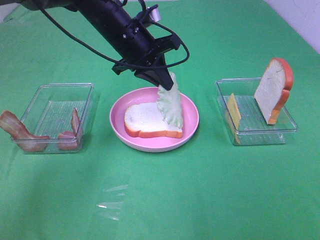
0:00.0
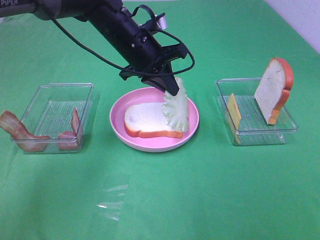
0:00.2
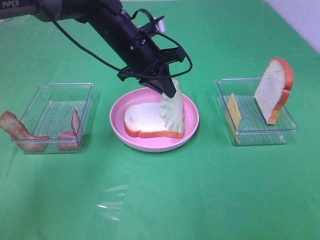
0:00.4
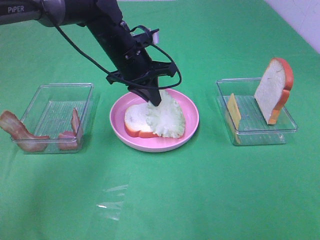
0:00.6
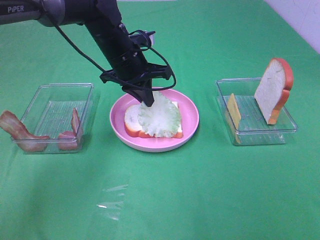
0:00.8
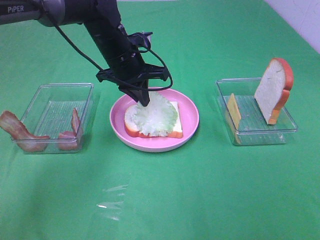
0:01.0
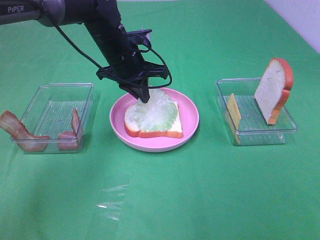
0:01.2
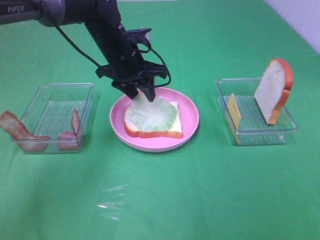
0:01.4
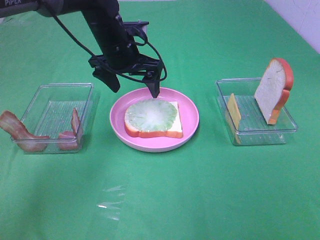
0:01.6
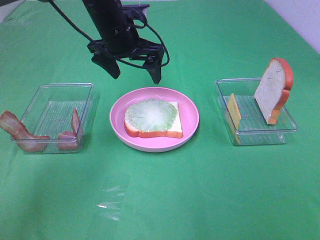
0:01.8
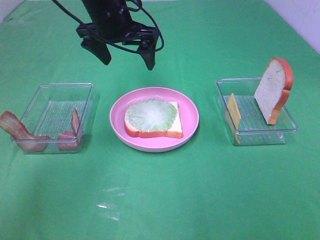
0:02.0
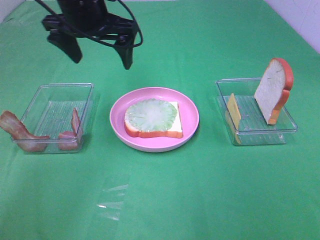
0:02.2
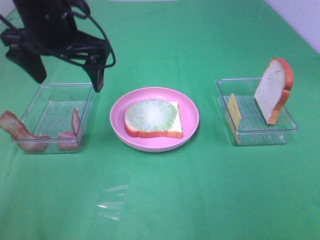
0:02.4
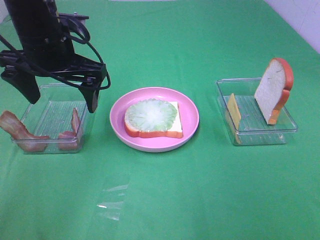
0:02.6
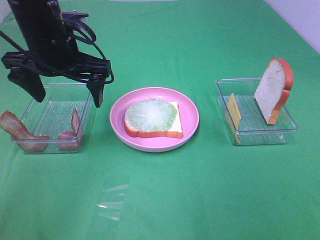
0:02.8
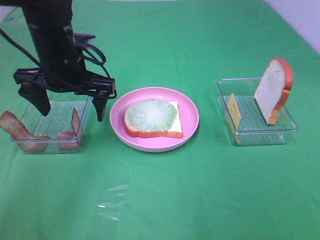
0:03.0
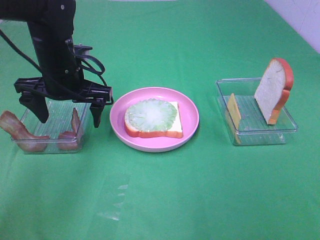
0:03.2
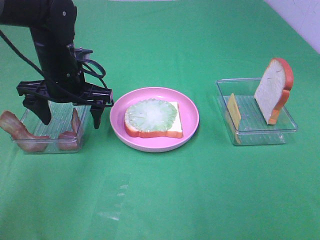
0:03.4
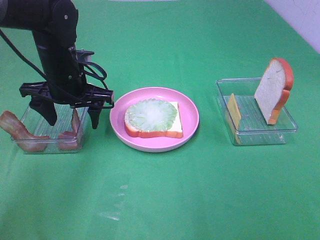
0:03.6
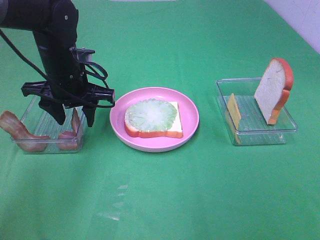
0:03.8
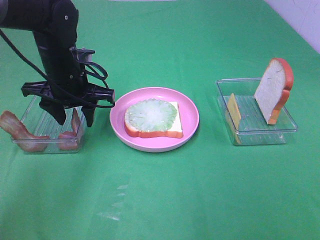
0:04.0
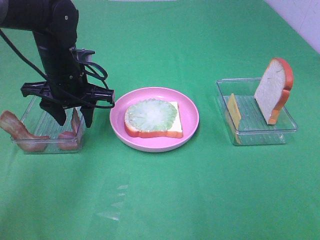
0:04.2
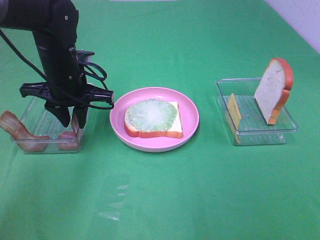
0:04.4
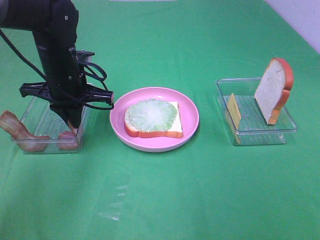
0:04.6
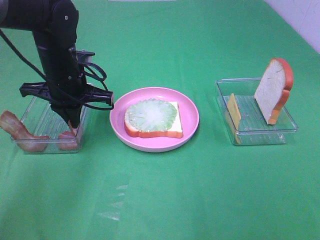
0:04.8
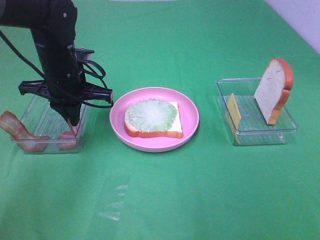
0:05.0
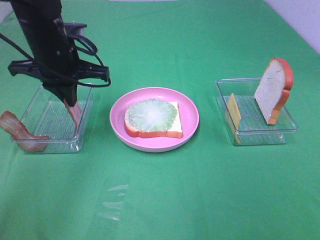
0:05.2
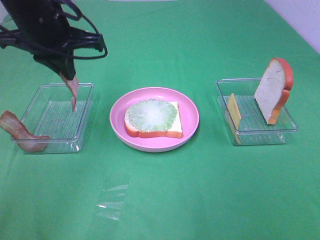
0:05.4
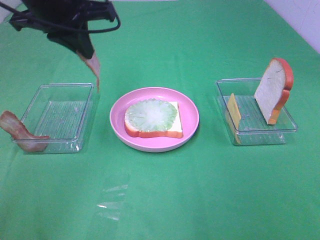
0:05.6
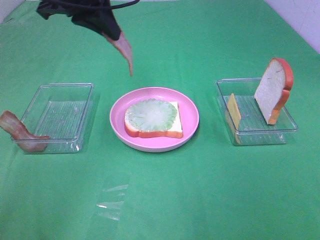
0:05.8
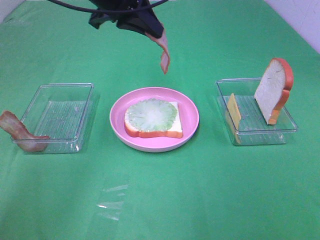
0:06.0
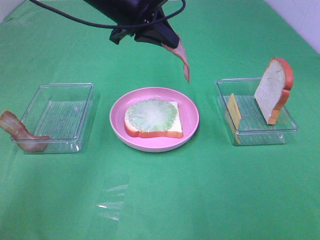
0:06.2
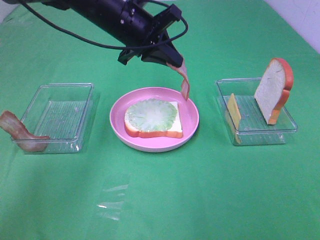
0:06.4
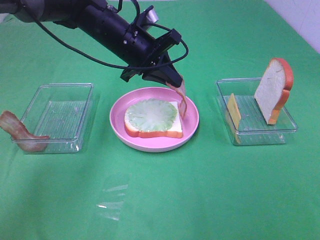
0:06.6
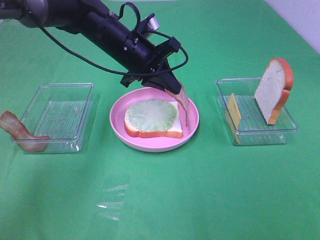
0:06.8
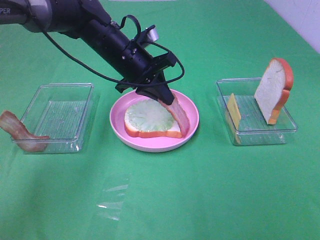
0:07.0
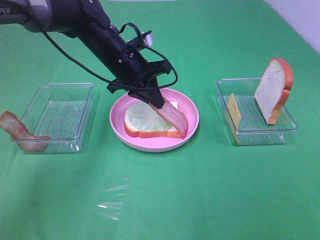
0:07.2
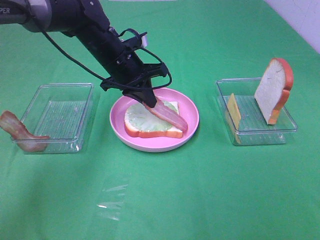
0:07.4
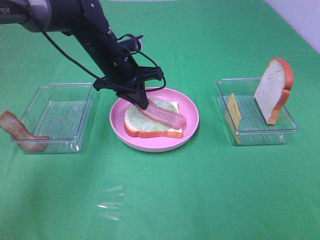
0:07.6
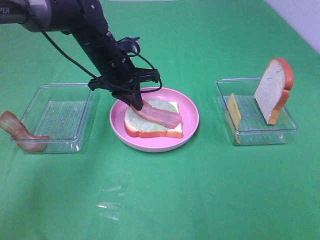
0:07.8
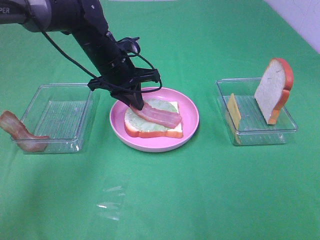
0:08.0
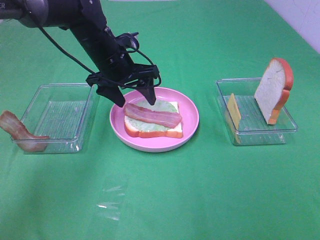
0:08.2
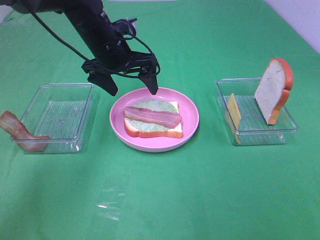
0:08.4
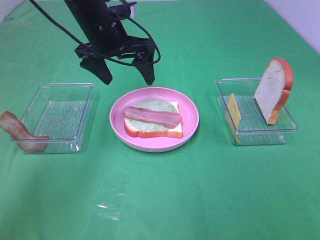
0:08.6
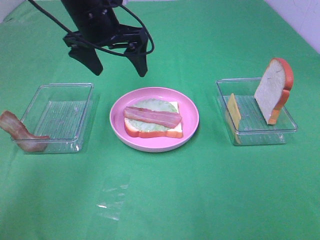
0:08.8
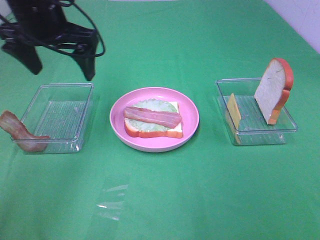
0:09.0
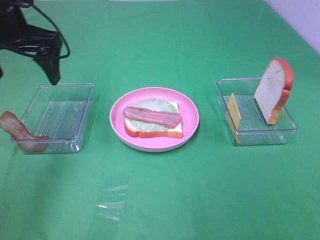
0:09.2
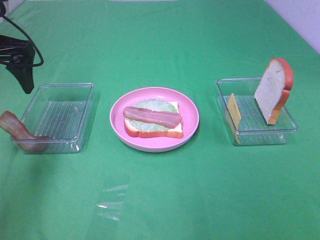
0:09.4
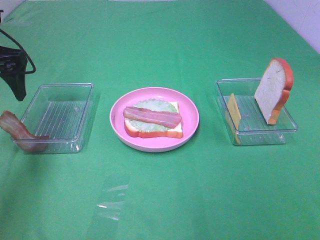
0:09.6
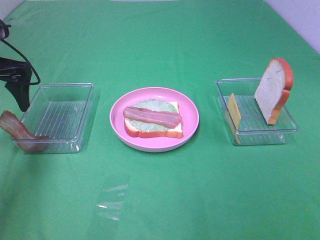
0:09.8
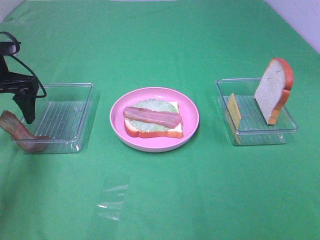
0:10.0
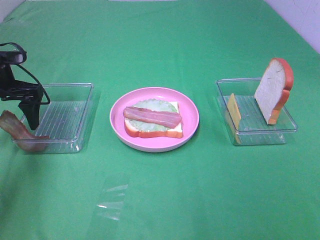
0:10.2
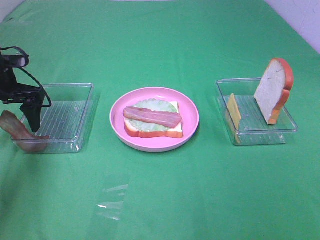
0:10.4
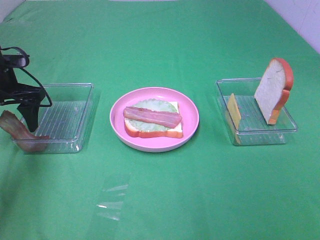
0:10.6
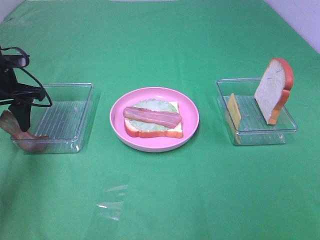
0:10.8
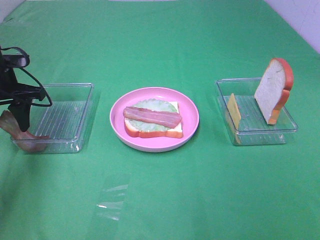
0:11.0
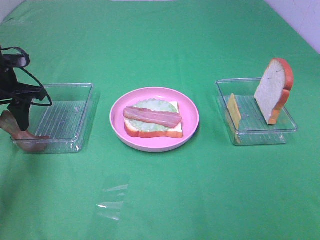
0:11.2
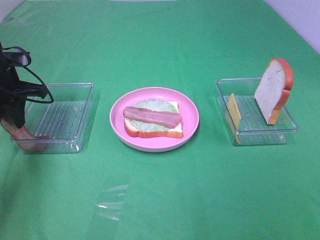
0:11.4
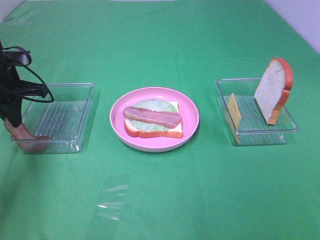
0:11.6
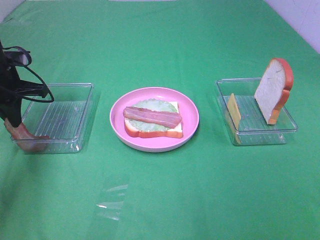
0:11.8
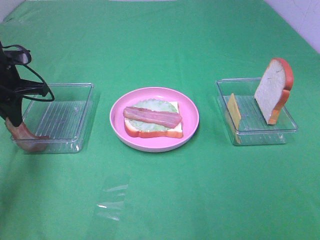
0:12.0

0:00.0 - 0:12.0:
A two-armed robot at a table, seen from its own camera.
Task of the whole recording: Make sandwiches.
Step, 0:01.6 - 0:04.6: Left hand:grab the bacon.
Step, 0:04.8 - 0:08.2: Left hand:place bacon on lettuce slice.
Step, 0:08.4 - 0:11.8: Left hand:grab the bacon.
0:00.0 - 0:01.6: The left gripper opens.
0:01.6 - 0:03.0: The left gripper goes some 10 cm backward and to the left.
0:03.0 - 0:04.4: The left gripper closes.
0:04.4 - 0:06.0: The left gripper heads upward and to the right, covering approximately 15 cm.
0:06.0 - 0:07.6: The left gripper heads downward, covering approximately 15 cm.
0:07.6 - 0:09.0: The left gripper heads upward, to the left and backward, covering approximately 15 cm, and opens its fingers.
0:09.0 - 0:10.4: The left gripper heads downward and to the left, covering about 15 cm.
0:10.4 - 0:12.0: The left gripper closes.

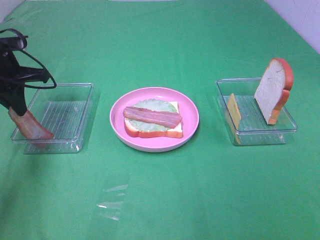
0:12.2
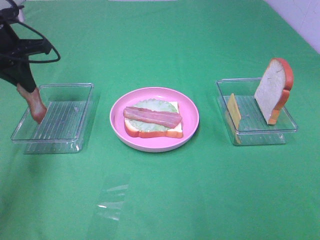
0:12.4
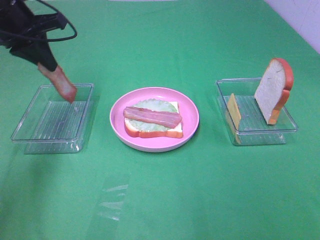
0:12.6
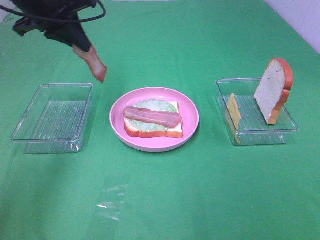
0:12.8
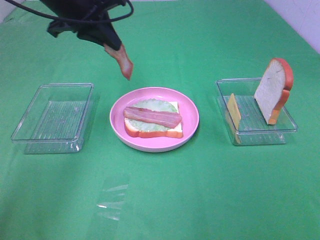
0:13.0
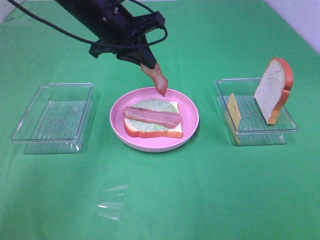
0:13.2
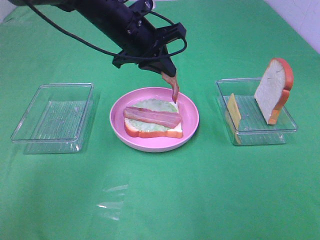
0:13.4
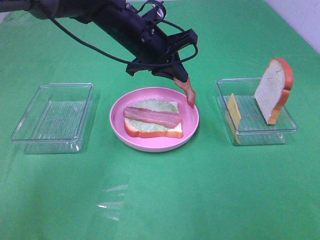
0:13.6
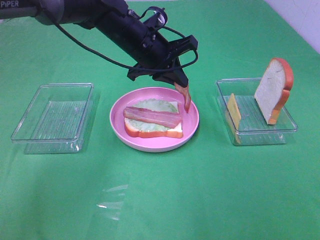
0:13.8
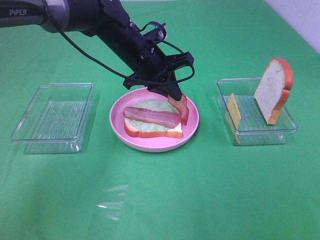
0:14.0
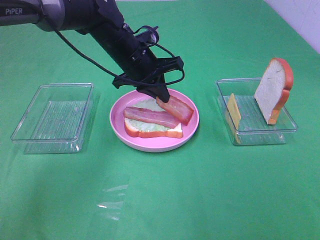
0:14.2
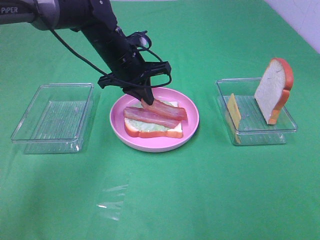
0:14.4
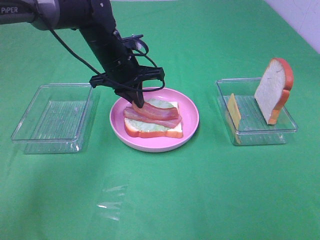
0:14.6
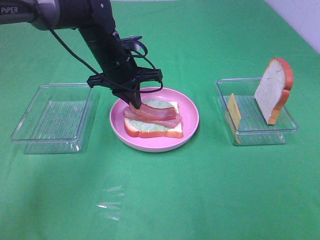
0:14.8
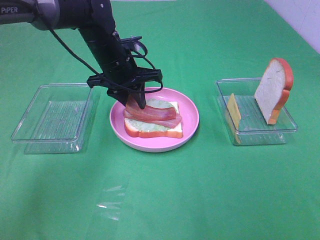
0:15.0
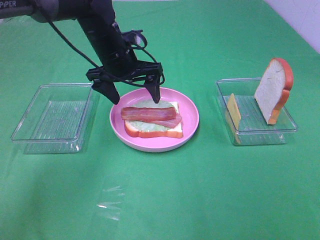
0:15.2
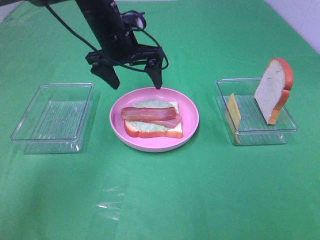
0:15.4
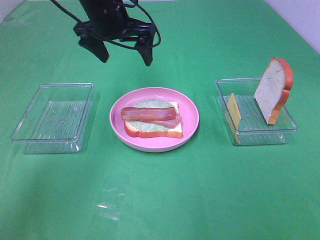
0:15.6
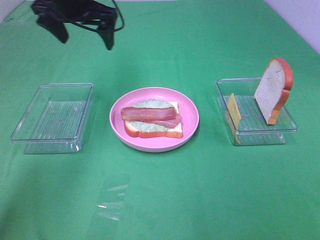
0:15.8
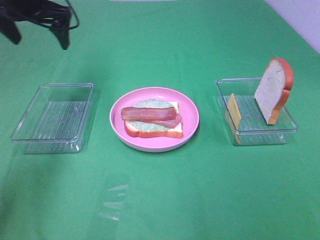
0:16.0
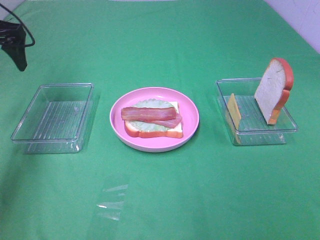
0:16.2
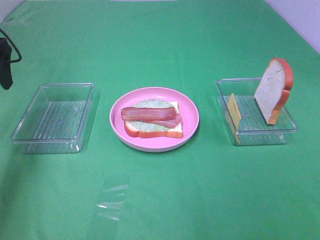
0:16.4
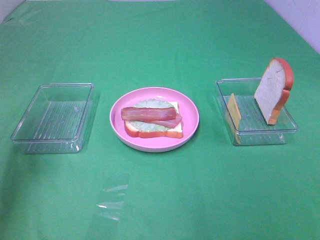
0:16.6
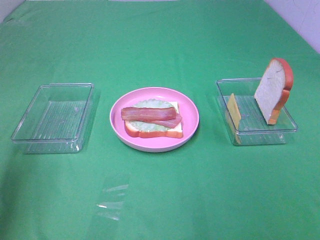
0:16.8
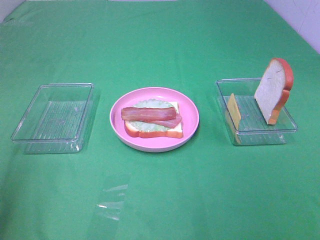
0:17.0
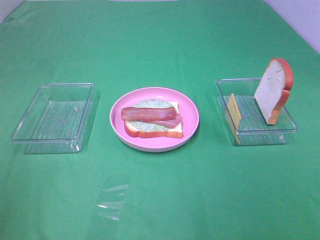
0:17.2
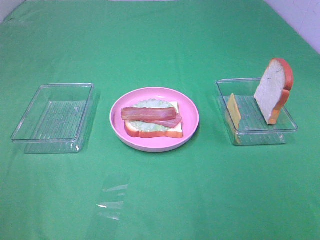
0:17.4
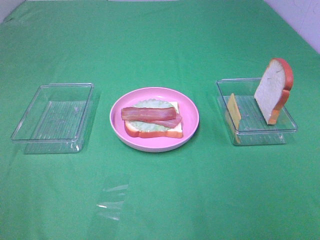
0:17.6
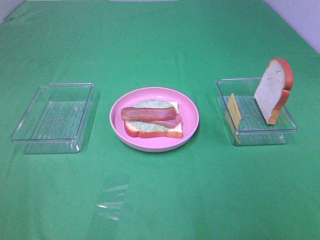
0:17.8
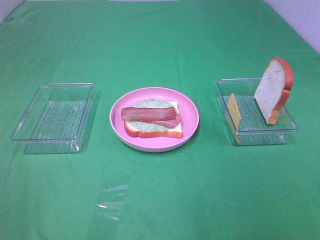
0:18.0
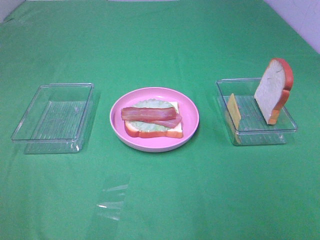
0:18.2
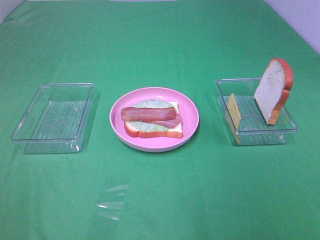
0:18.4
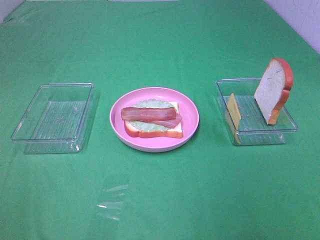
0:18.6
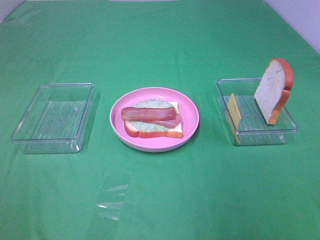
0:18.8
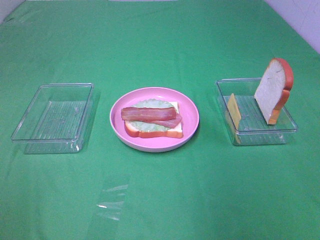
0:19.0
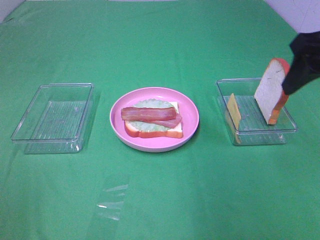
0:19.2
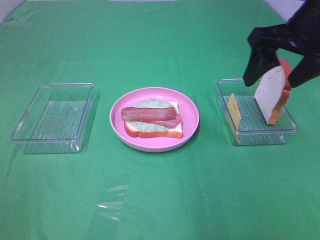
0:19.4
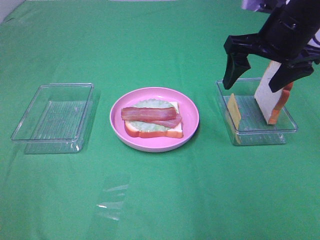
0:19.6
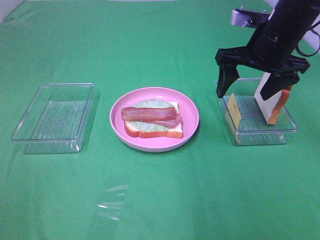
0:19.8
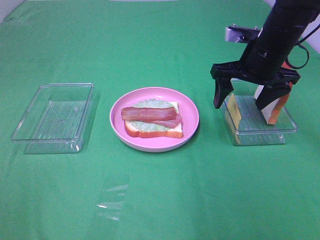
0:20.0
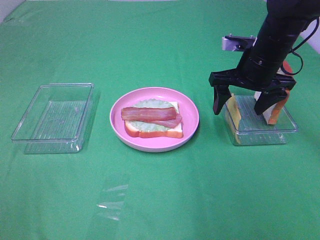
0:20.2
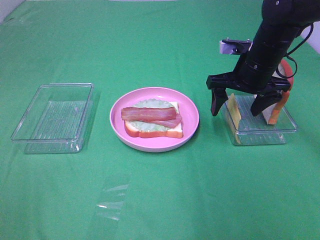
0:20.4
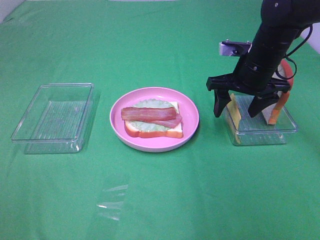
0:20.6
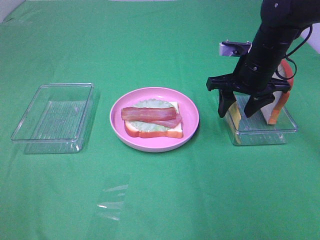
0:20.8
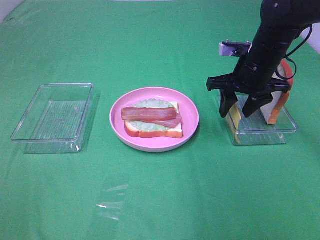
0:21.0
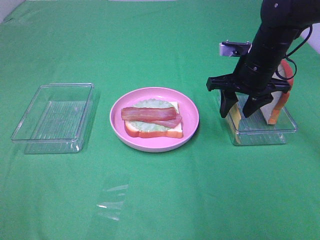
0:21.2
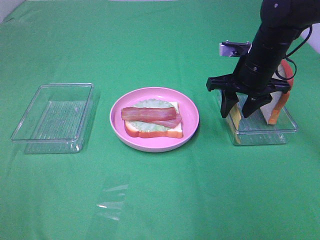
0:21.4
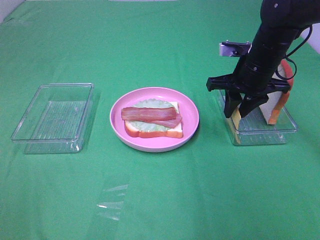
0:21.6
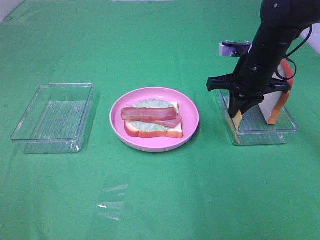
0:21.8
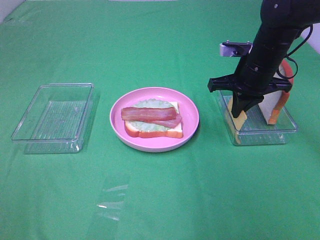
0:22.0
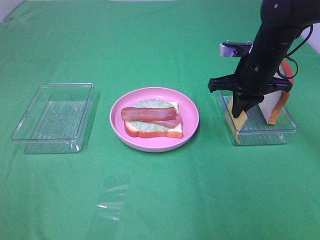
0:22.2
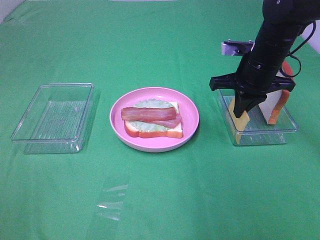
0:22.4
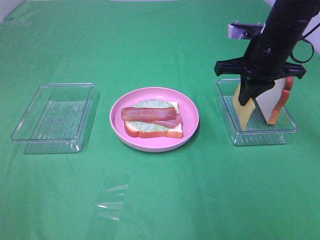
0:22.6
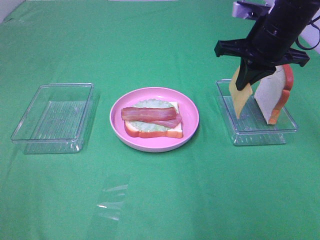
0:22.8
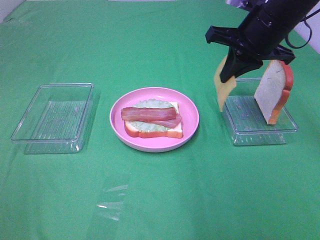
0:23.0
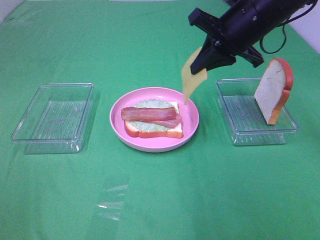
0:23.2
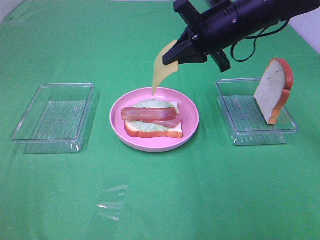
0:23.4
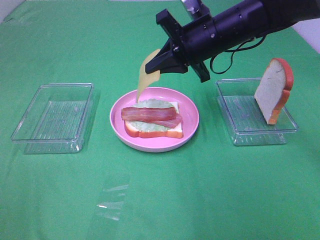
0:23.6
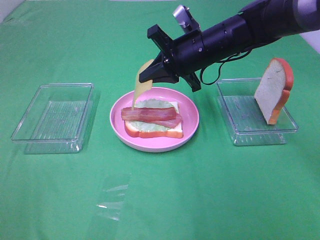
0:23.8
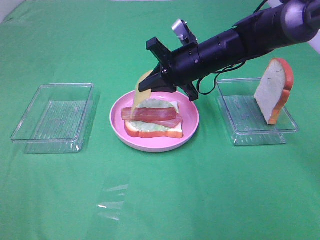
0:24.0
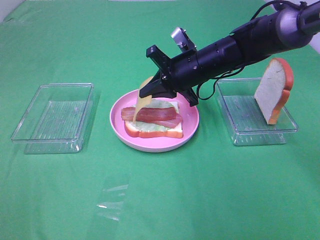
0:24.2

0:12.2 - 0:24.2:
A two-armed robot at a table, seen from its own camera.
Task of the whole recording: Make sandwiches.
Step, 0:12.2 - 0:15.2: Left hand:place bacon on bacon.
Step, 0:15.4 - 0:22.2: Right hand:grab the cheese slice.
0:12.2 - 0:13.8: The left gripper heads to the right, covering some 25 cm.
0:13.8 - 0:15.2: The left gripper shifts by about 5 cm, and opens up.
0:15.2 - 0:16.6: The left gripper heads to the left, backward and upward, covering about 30 cm.
0:16.6 - 0:18.2: The left gripper moves backward, roughly 30 cm.
0:18.2 - 0:19.8: The right gripper is displaced forward by roughly 35 cm.
0:19.8 - 0:21.2: The right gripper shifts approximately 5 cm downward, and closes its fingers.
0:21.2 - 0:22.6: The right gripper heads upward, covering some 5 cm, and closes up.
0:22.6 - 0:24.2: The right gripper is displaced to the left and downward by some 15 cm.
